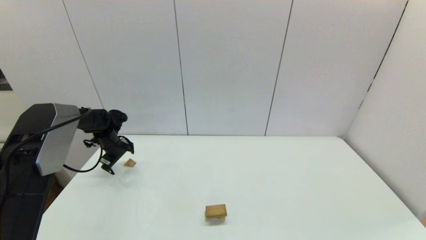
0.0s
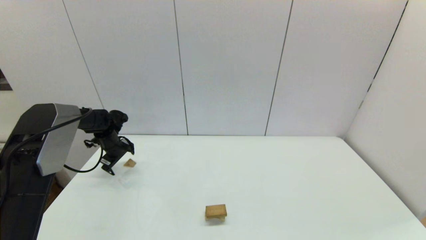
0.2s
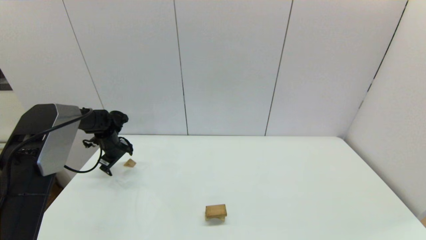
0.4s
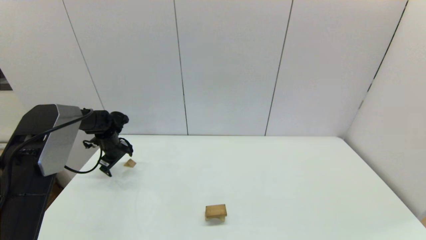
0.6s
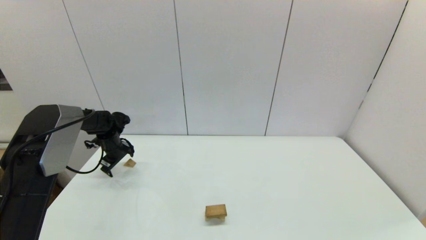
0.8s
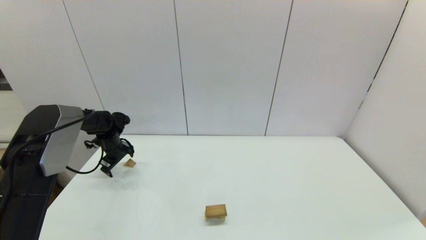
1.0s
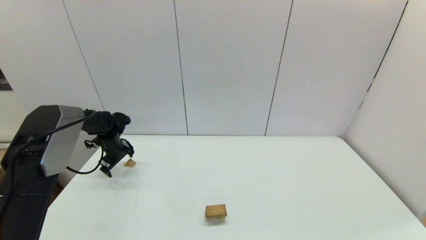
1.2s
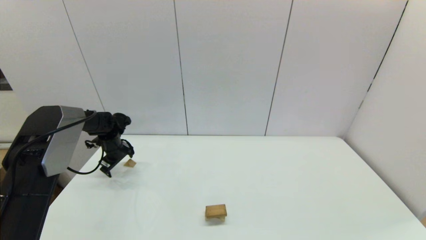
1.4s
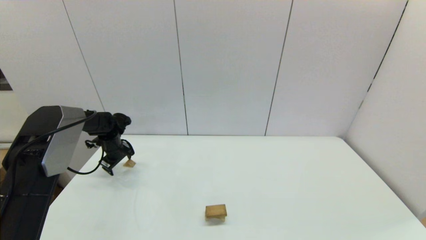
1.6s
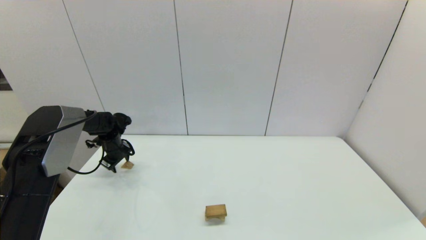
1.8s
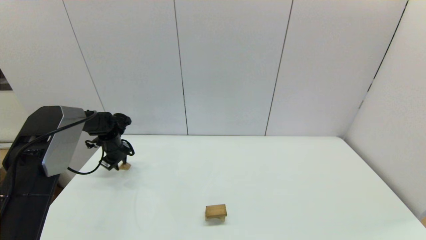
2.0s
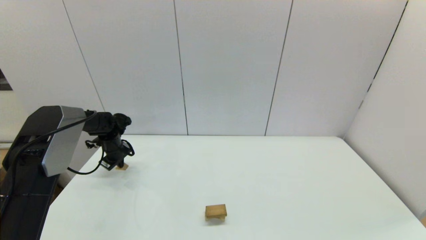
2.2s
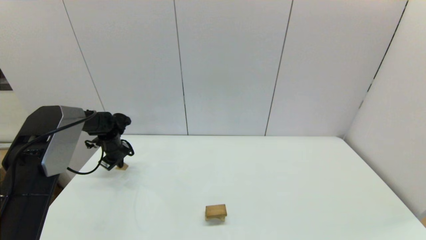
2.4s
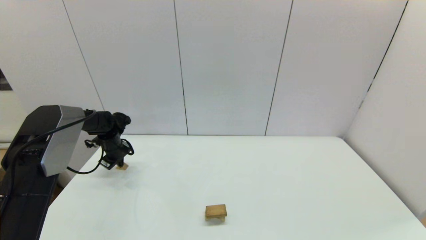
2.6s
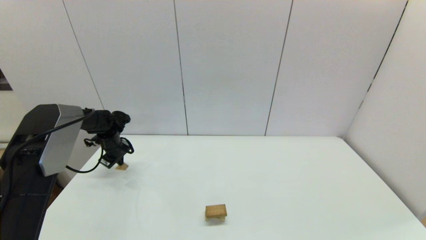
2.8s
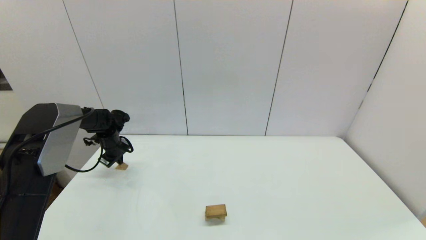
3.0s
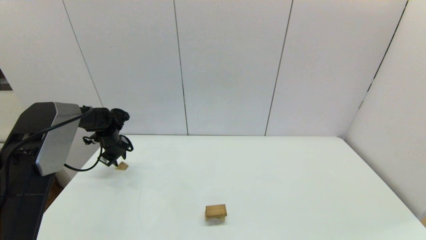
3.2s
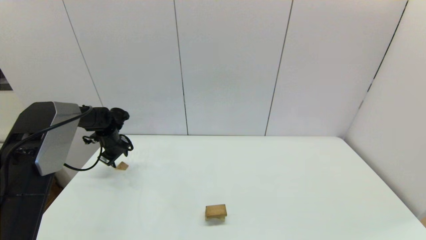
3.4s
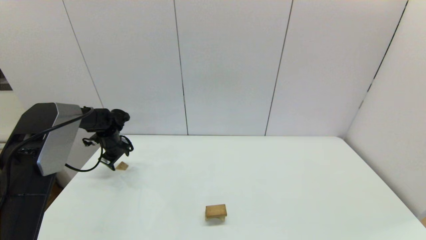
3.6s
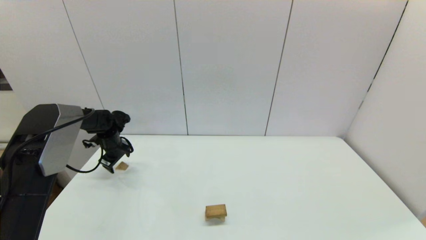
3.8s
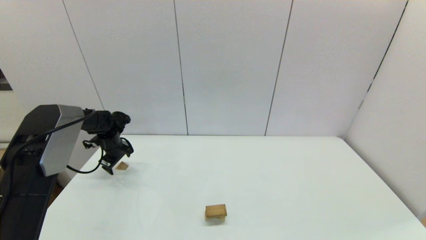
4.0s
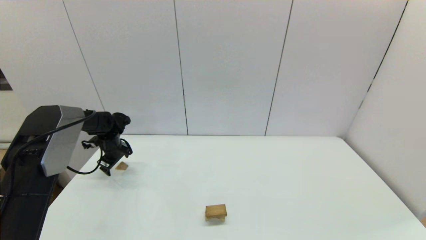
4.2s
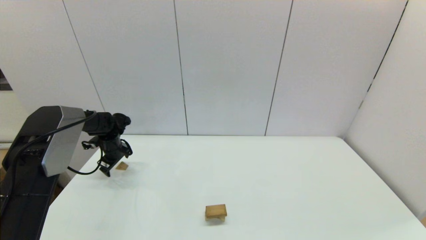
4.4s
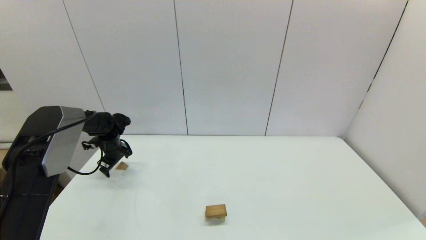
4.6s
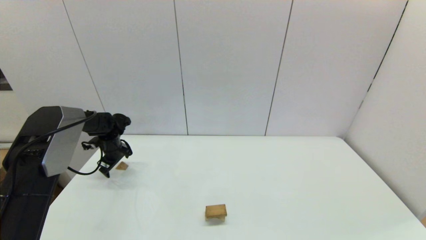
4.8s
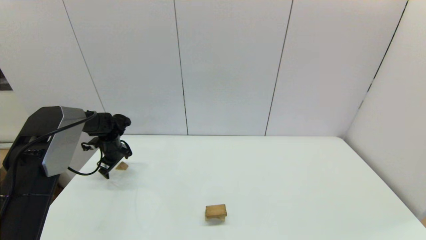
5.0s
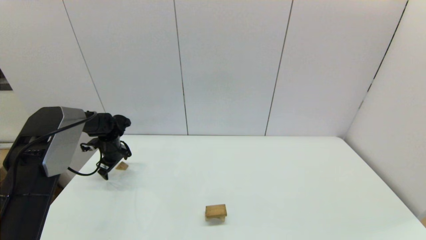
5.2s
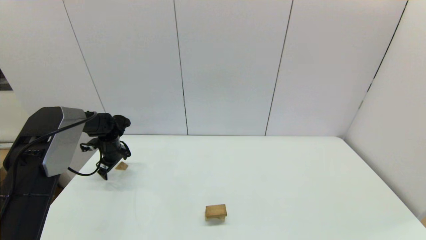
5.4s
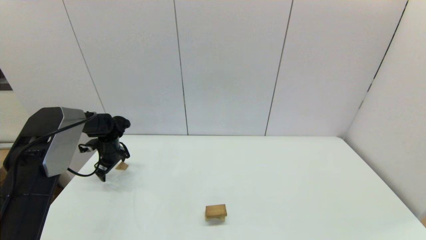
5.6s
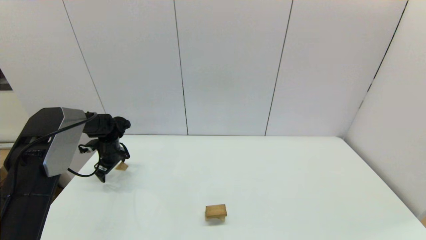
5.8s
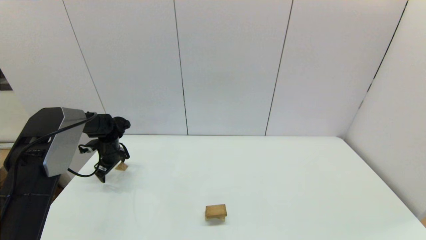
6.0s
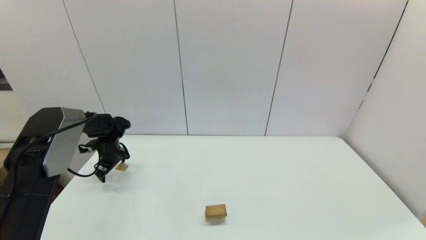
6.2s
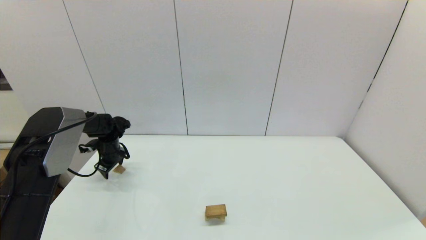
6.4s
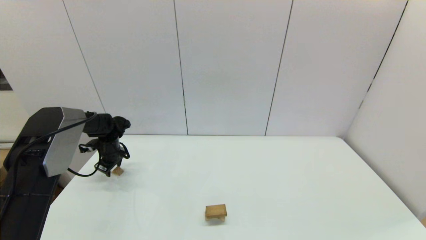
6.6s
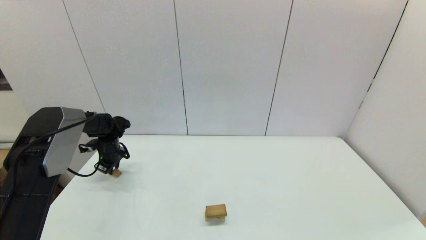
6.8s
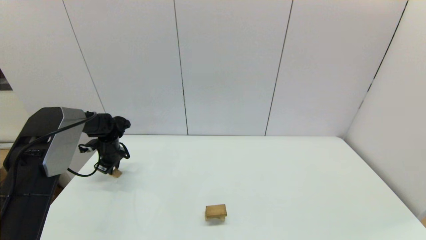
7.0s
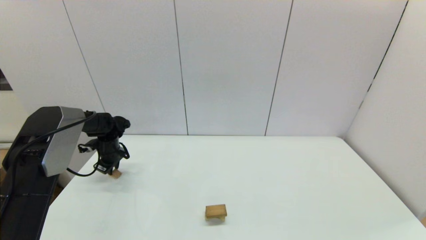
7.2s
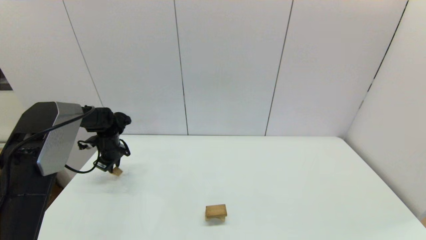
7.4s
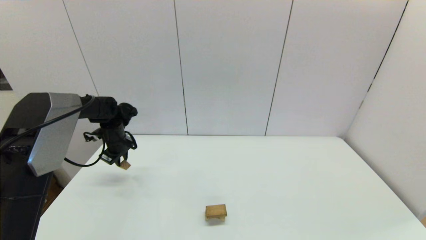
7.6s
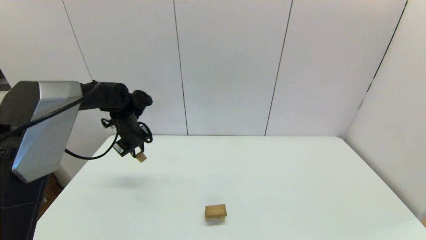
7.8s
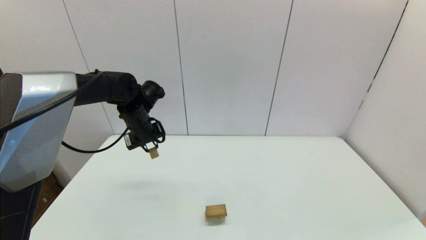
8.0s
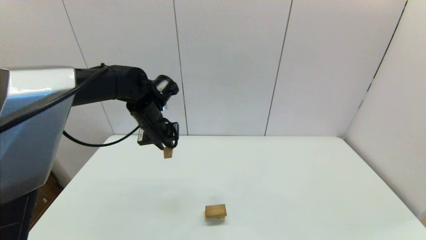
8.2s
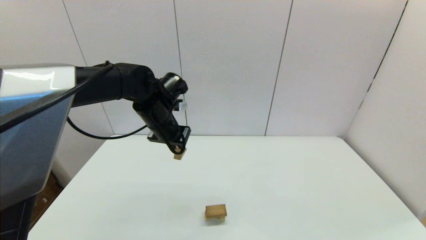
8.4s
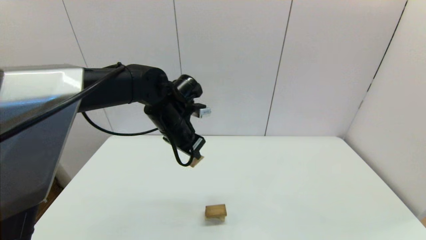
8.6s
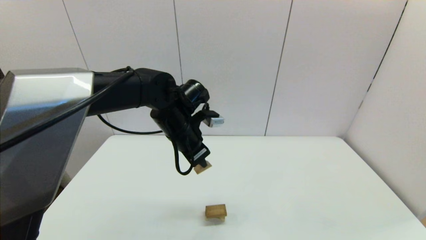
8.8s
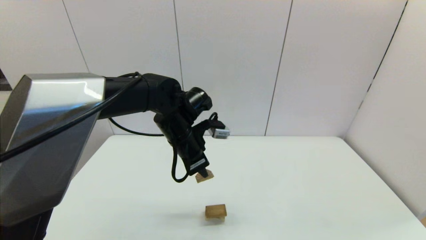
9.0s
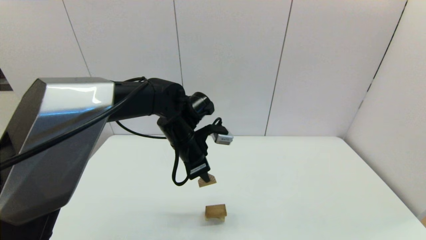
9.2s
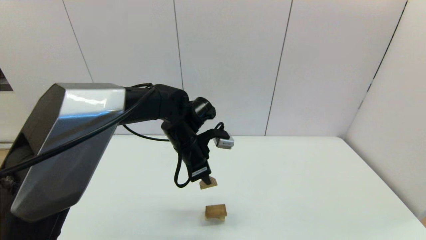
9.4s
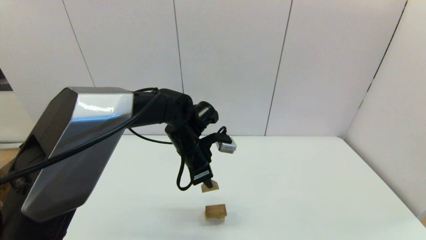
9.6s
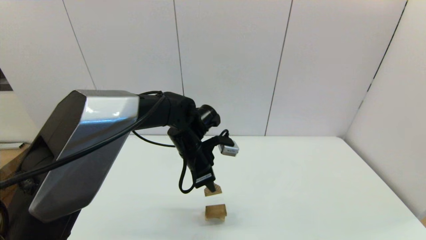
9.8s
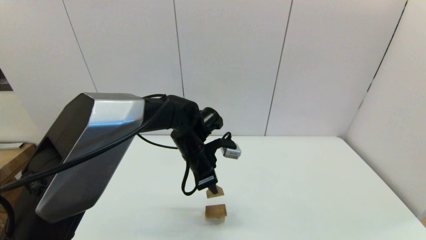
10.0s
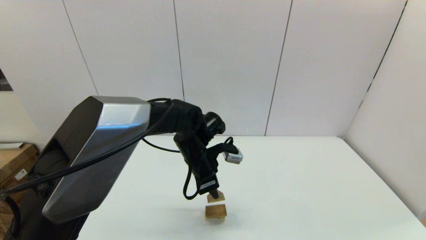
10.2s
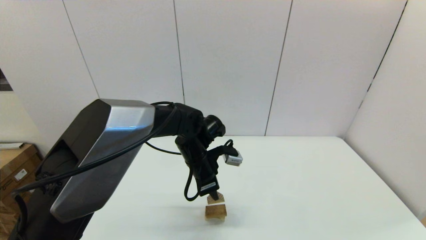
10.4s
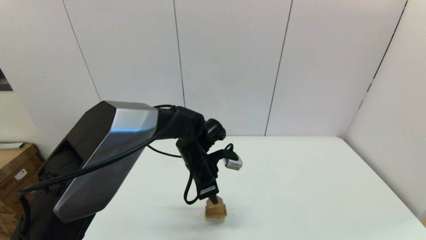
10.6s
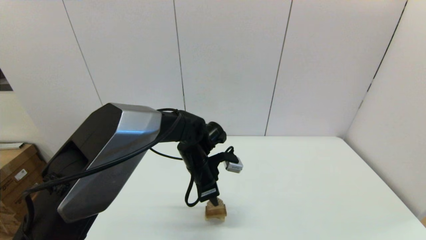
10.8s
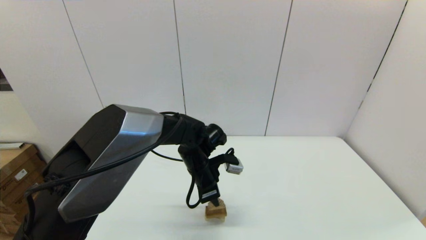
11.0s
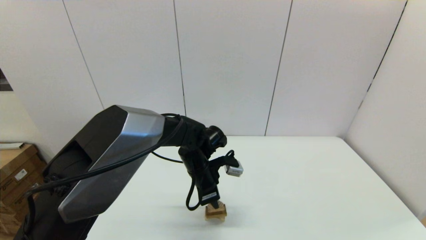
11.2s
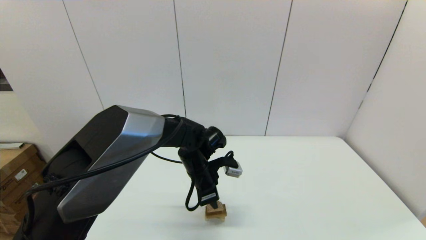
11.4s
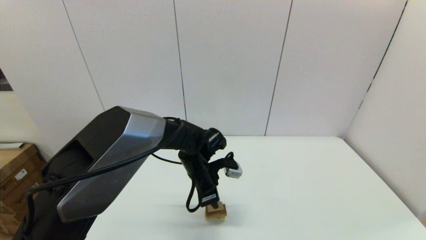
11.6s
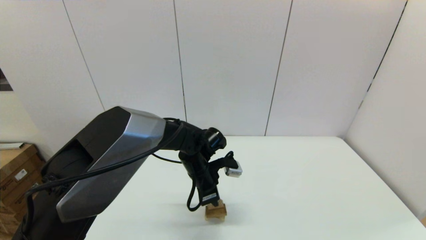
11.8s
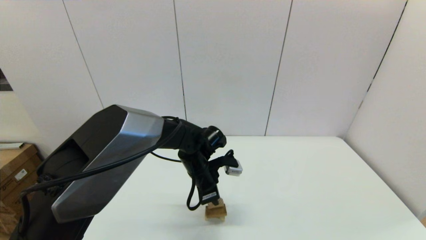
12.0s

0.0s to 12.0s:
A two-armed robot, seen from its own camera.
Task of the whole recording: place the arched building blocks in the center of the table, set up the rectangular building blocks, and then set up the triangular building blocks.
Step, 0.0s to 6.8s: Grasp the triangle-shaped block with the left gripper.
0.0s to 1.6s: The grippers stay close to where they were, moving slightly.
1.6s to 3.0s: The left gripper closes its fingers.
3.0s to 4.4s: The left gripper opens.
4.4s to 6.0s: The grippers stay close to where they were, moving slightly.
6.0s to 7.6s: The left gripper is displaced upward and to the right by approximately 10 cm, and closes.
7.6s to 9.0s: The left gripper shifts roughly 25 cm to the right and backward.
9.0s to 10.4s: The left gripper goes approximately 5 cm downward.
10.4s to 12.0s: There are only small adjustments of the grippers.

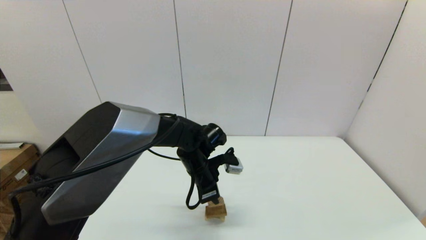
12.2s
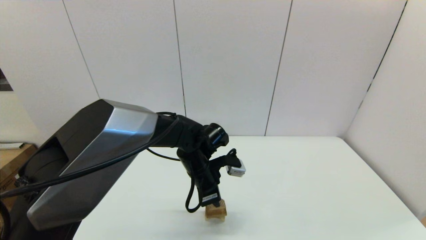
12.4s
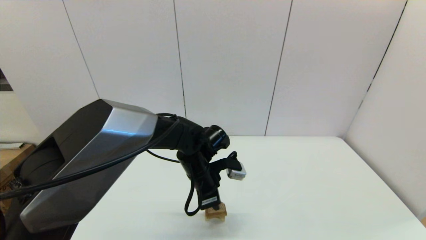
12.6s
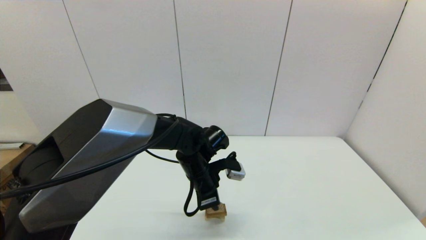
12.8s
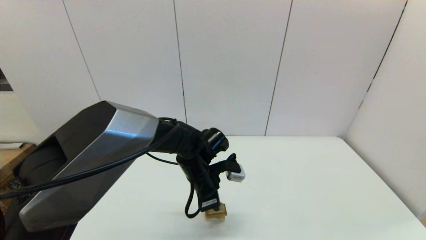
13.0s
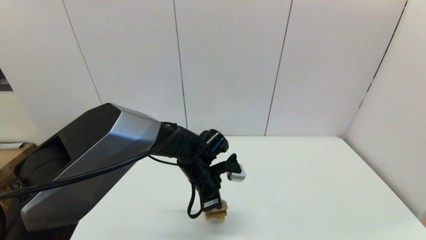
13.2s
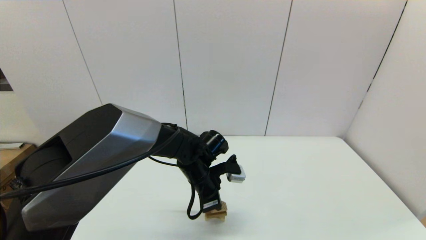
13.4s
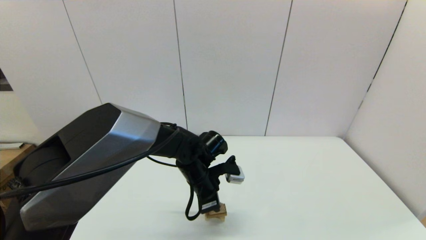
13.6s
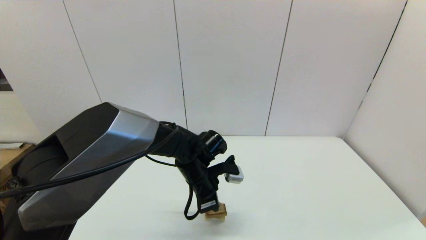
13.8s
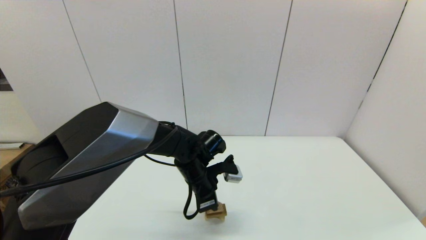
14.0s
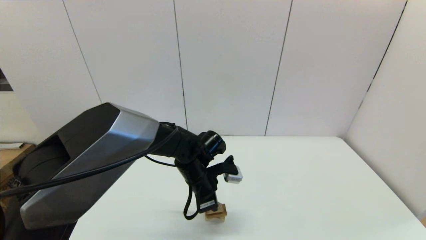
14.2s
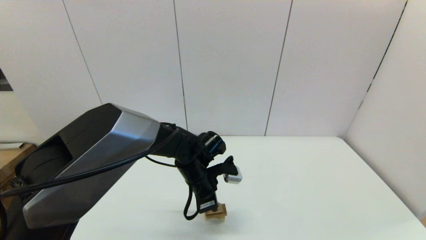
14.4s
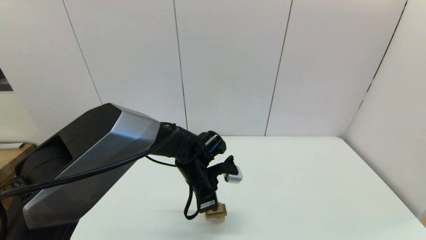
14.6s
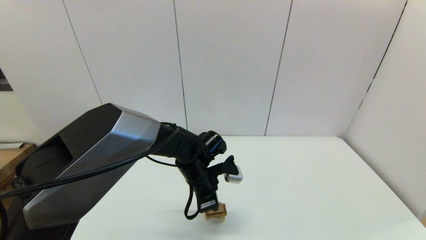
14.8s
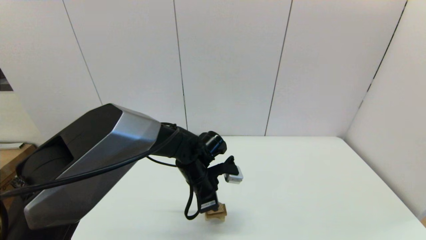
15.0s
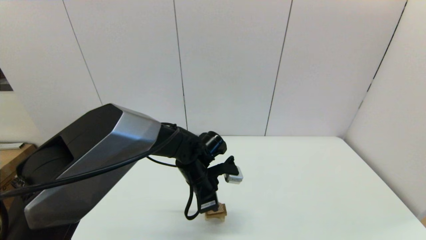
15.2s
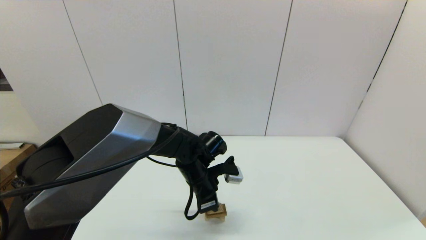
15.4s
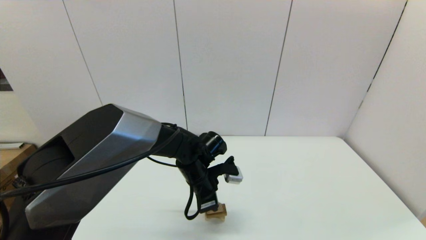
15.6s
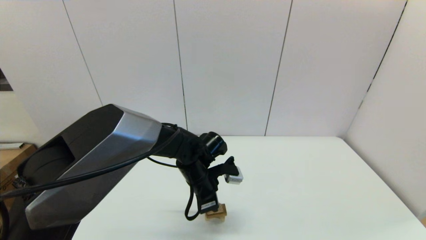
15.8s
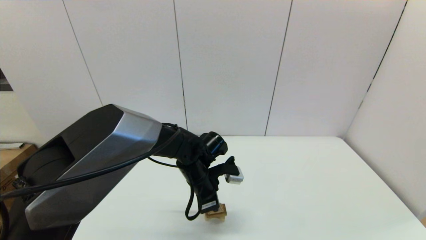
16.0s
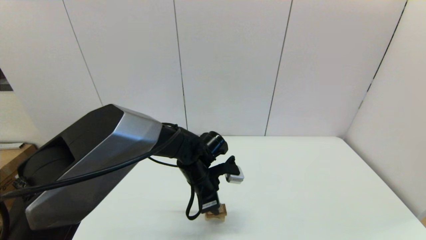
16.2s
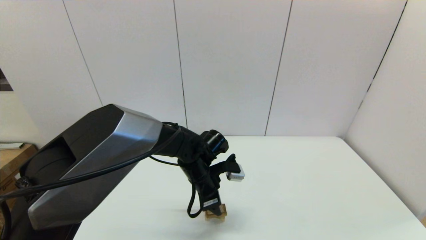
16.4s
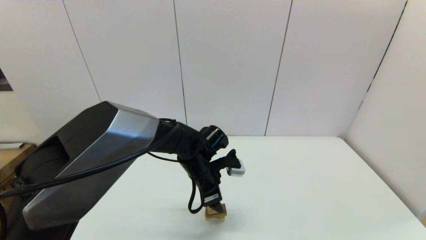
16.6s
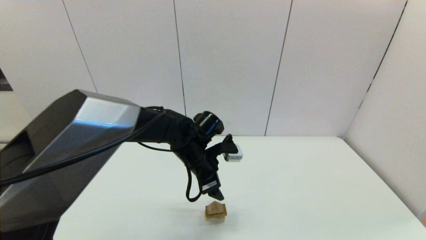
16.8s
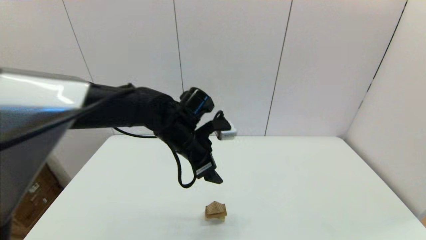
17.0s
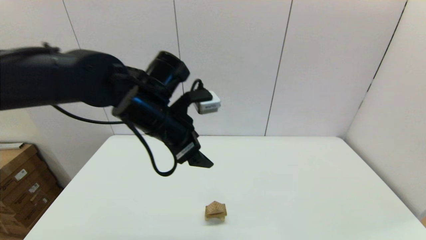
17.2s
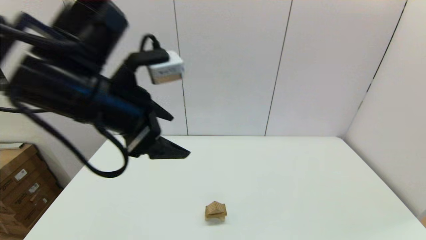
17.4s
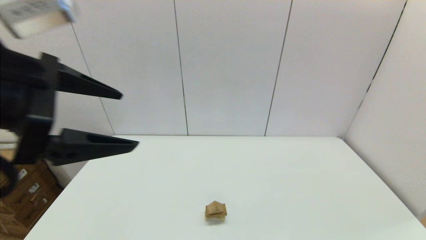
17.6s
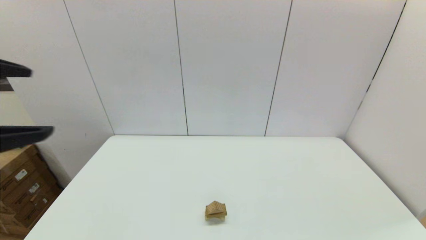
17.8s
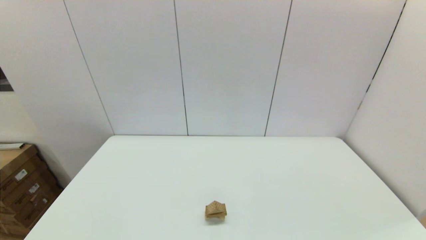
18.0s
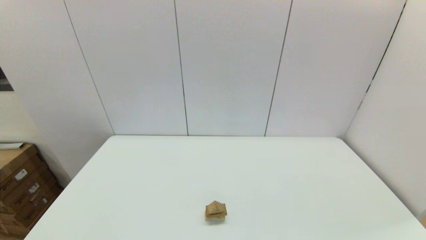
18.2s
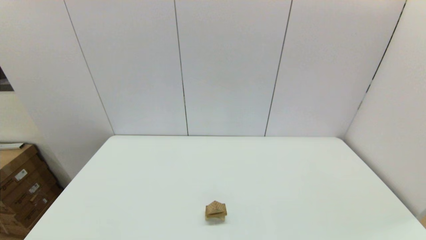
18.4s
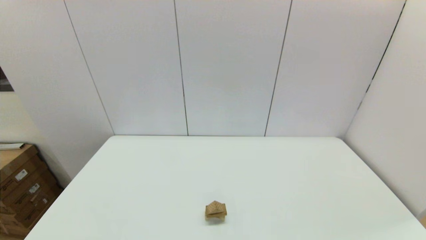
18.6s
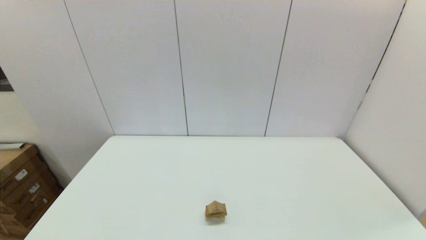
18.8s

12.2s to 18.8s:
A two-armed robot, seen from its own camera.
Task of the whole recording: place the arched building blocks in the center of the table, set up the rectangular building blocks, and then set up the triangular building blocks.
12.2s to 13.8s: The grippers stay close to where they were, moving slightly.
13.8s to 15.4s: Both grippers stay put.
15.4s to 17.2s: The left gripper is displaced upward by roughly 20 cm, and opens up.
17.2s to 18.8s: The left gripper goes about 40 cm backward and to the left.
